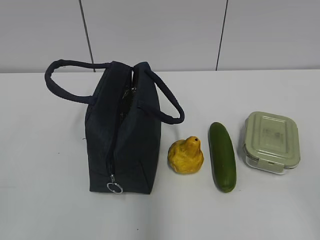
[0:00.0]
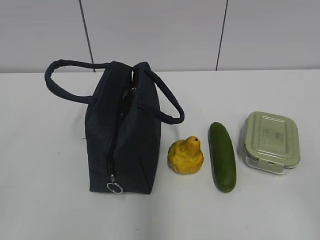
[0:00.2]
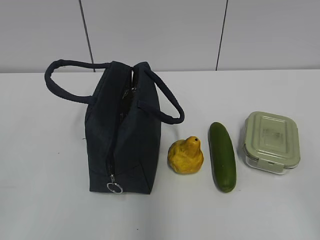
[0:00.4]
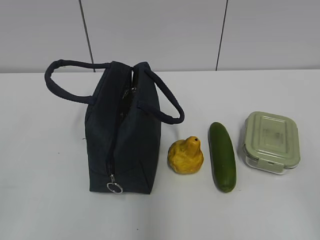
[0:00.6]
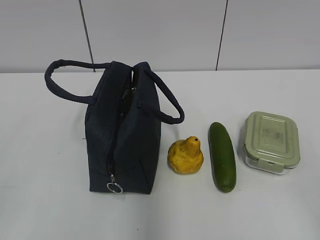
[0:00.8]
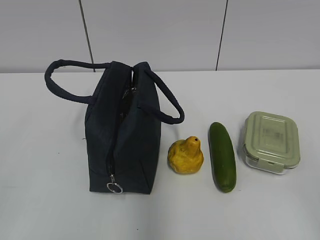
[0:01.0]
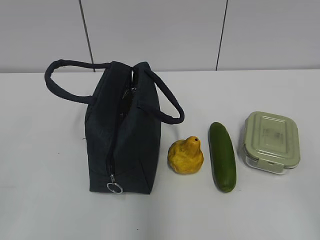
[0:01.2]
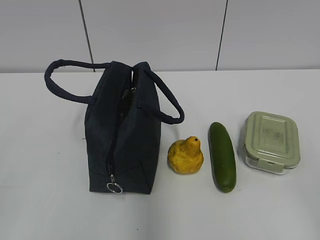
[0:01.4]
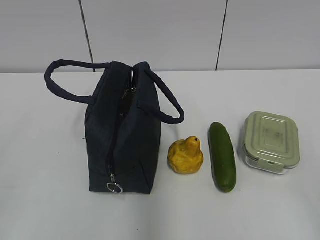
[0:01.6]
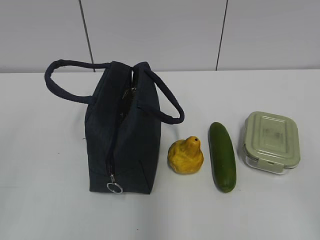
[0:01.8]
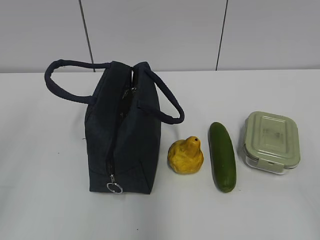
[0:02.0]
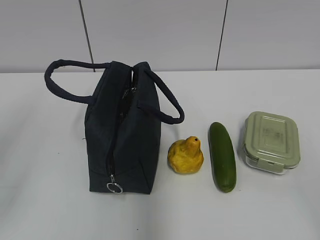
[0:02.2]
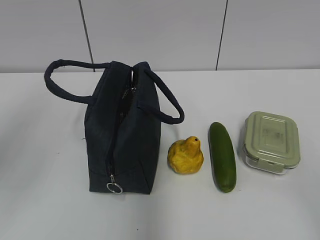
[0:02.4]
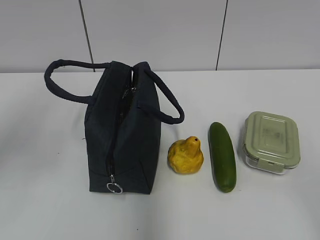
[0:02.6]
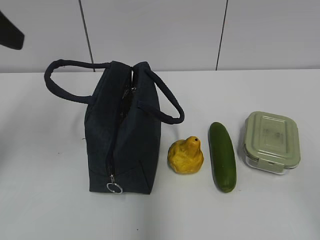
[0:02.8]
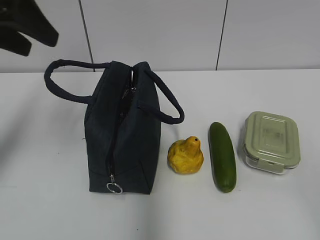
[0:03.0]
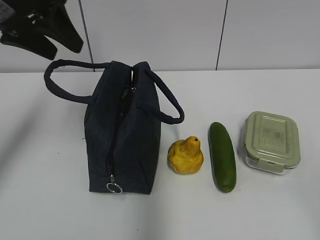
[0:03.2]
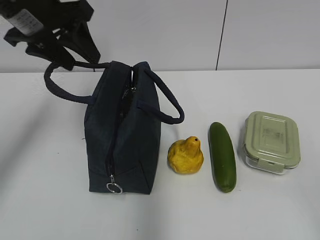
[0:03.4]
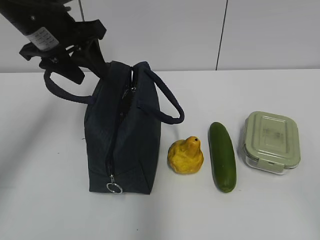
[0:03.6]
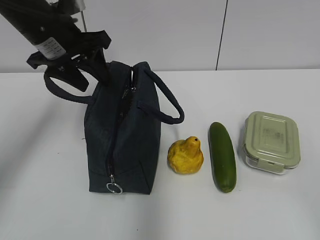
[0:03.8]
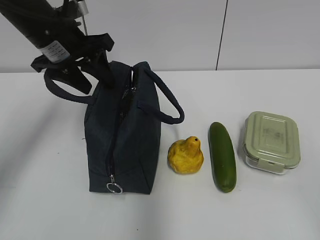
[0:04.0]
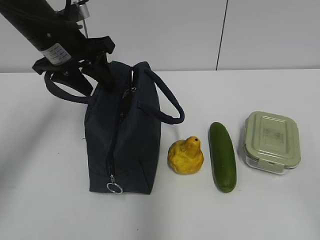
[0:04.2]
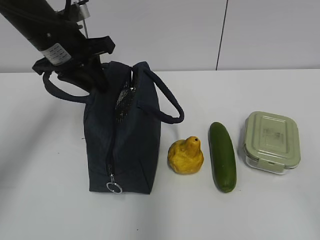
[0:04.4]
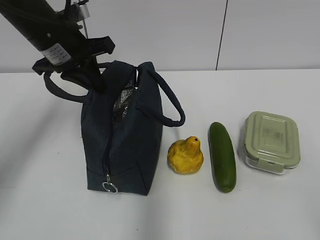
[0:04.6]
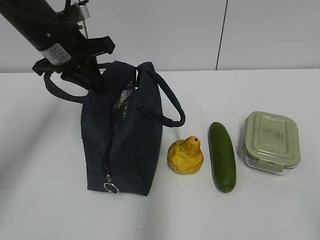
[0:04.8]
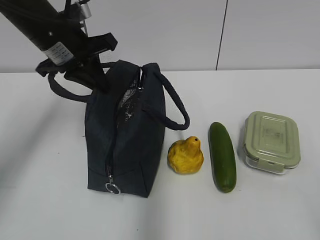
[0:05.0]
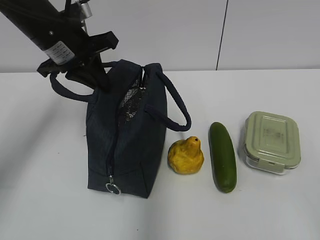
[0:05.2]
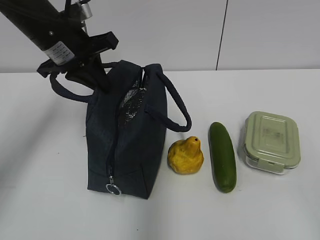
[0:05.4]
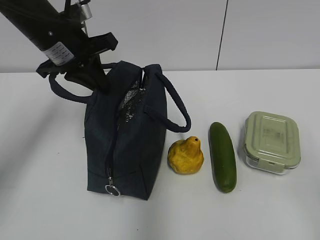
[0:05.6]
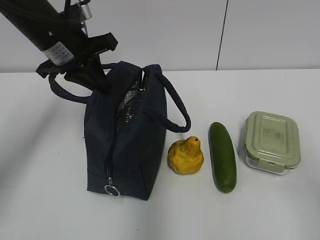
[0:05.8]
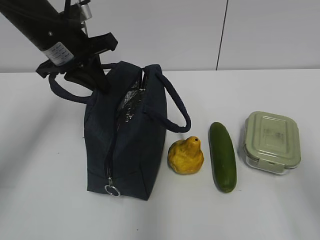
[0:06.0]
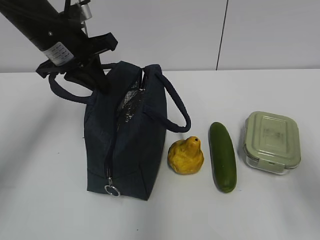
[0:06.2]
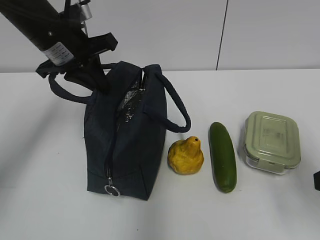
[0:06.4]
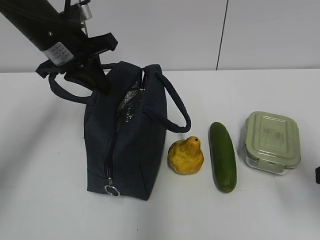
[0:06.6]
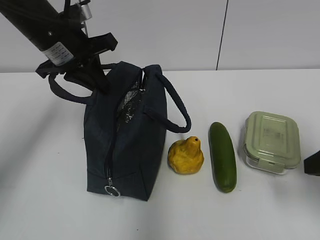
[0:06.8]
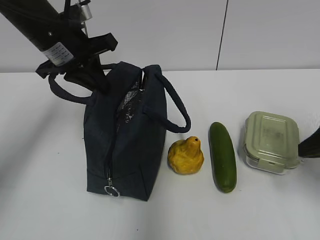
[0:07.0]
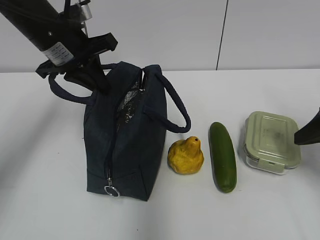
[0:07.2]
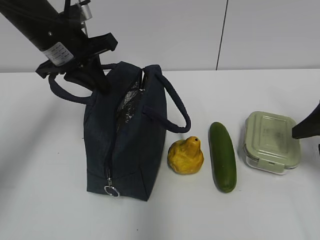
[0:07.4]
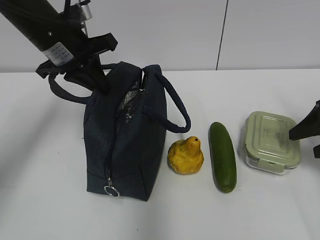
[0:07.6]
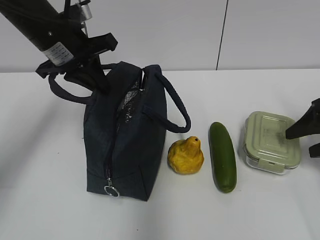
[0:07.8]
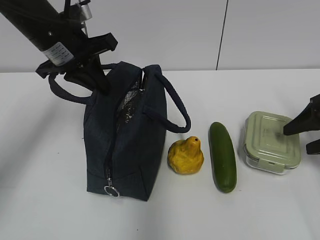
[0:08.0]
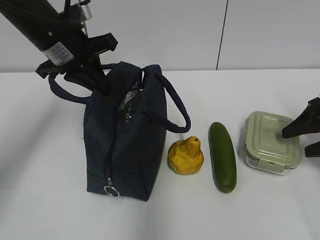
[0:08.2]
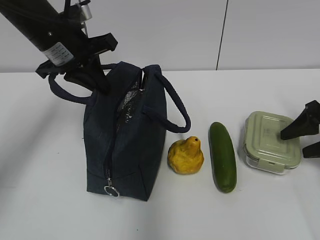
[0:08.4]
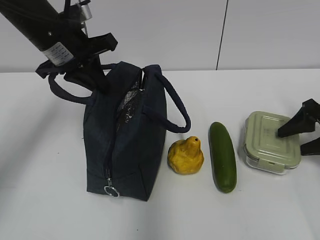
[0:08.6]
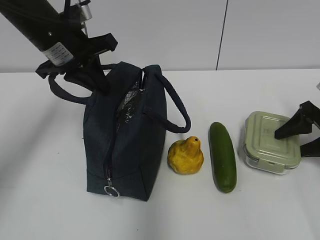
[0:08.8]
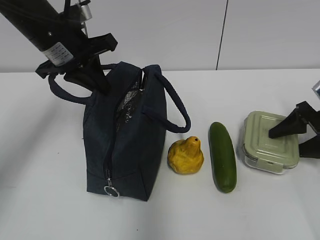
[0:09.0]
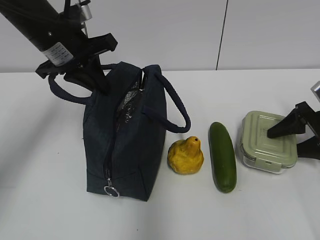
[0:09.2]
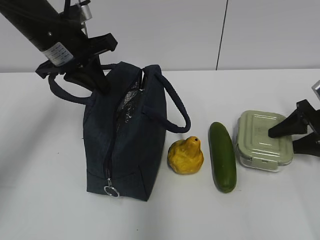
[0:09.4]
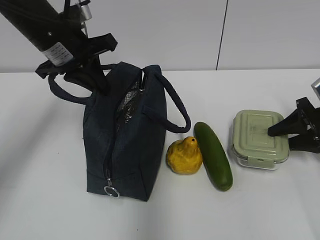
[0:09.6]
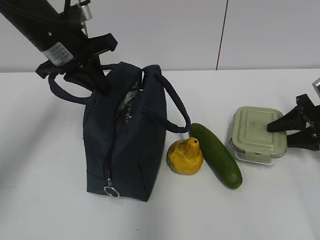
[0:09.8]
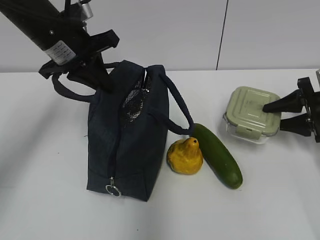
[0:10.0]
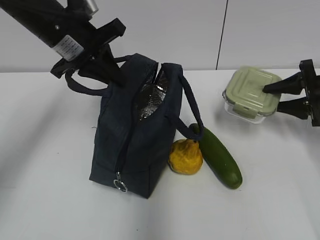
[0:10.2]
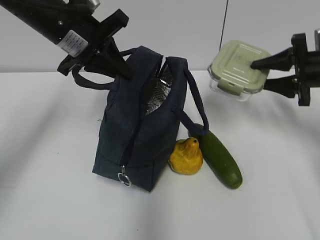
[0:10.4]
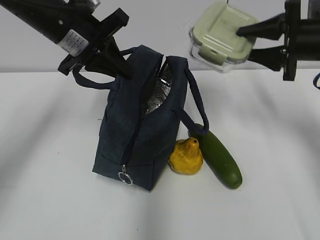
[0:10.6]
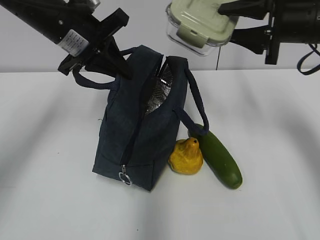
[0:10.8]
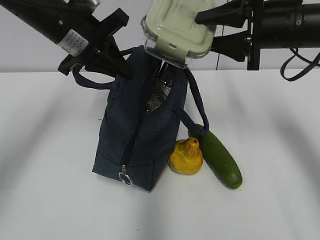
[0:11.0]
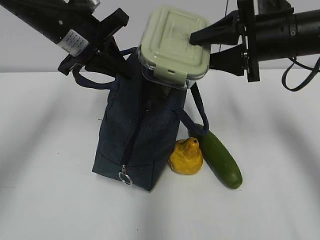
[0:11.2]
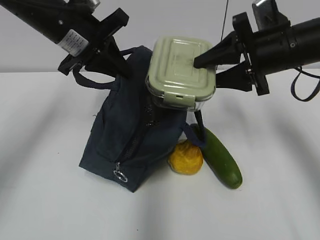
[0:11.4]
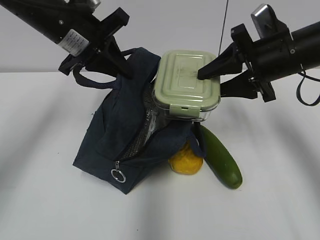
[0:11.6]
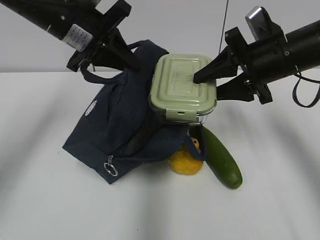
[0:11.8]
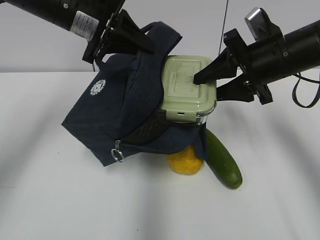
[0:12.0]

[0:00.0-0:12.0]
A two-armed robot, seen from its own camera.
Step, 0:00.0 to 0:04.6: Grab the lunch bag with your left hand.
Step, 0:04.8 to 0:09.6: Grab the lunch box with your right hand.
0:01.6 to 0:03.0: The left gripper is displaced forward by roughly 30 cm.
0:03.0 to 0:04.4: The left gripper shifts about 15 cm downward, forward and to the right, and closes.
0:04.4 to 0:06.0: The right gripper heads forward, covering approximately 10 cm; the left gripper closes.
0:06.0 to 0:07.6: The right gripper goes about 20 cm forward.
0:07.6 to 0:09.0: The right gripper shifts some 10 cm downward and forward.
0:09.0 to 0:10.4: The right gripper travels upward by roughly 10 cm, and closes its fingers.
0:10.4 to 0:12.0: The right gripper is displaced to the left by some 10 cm.

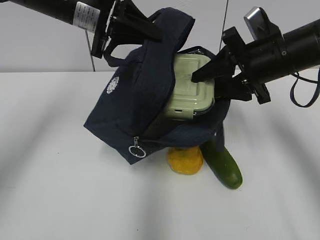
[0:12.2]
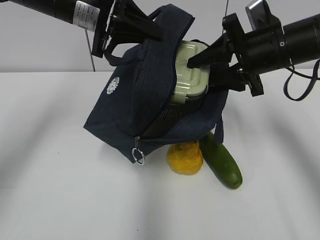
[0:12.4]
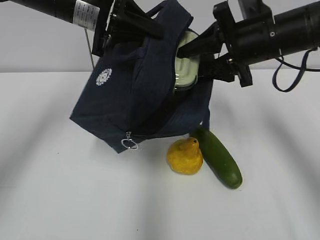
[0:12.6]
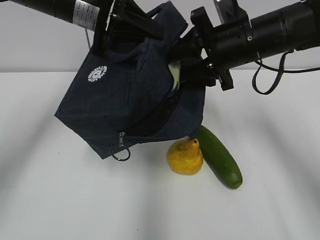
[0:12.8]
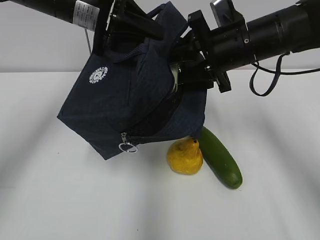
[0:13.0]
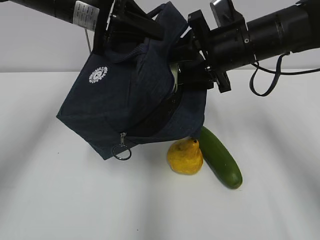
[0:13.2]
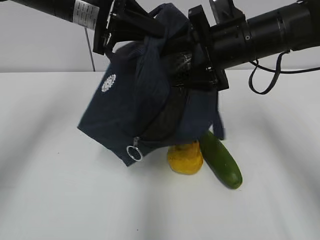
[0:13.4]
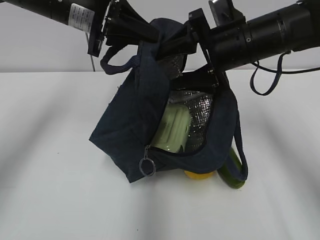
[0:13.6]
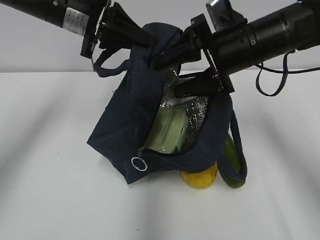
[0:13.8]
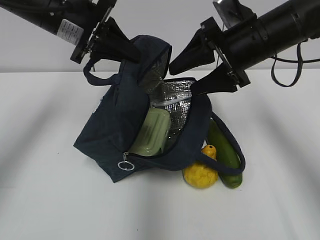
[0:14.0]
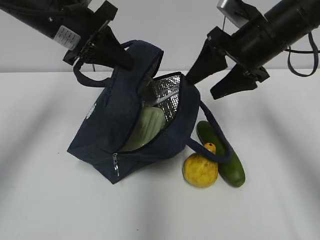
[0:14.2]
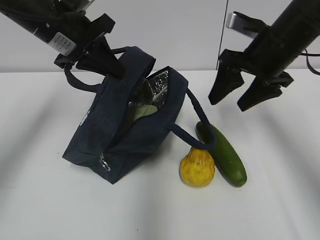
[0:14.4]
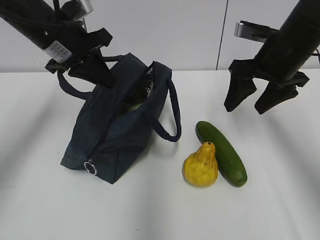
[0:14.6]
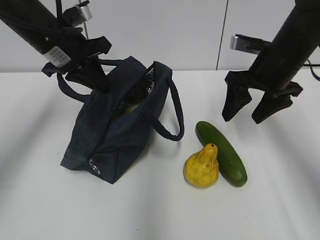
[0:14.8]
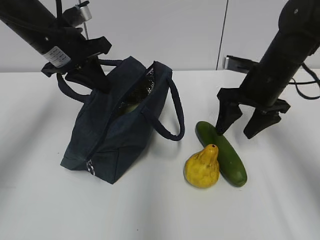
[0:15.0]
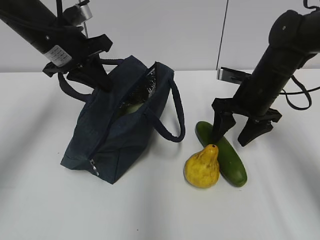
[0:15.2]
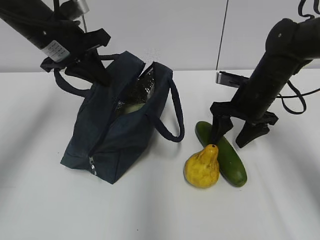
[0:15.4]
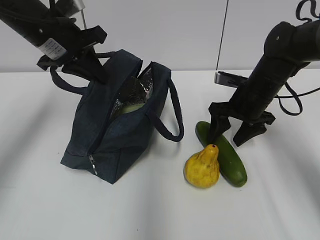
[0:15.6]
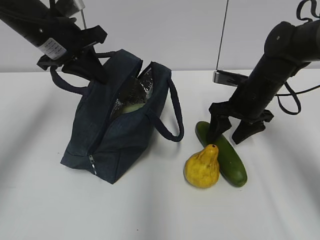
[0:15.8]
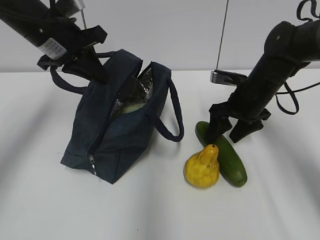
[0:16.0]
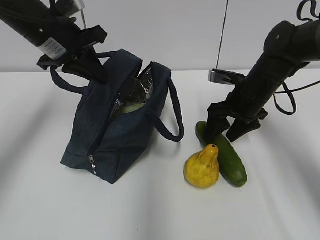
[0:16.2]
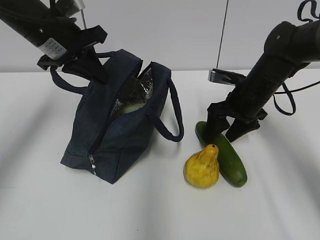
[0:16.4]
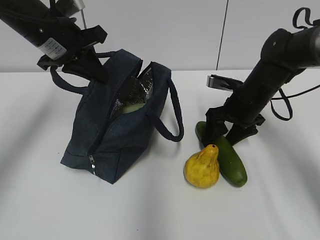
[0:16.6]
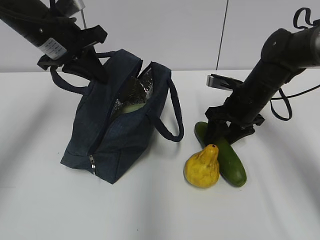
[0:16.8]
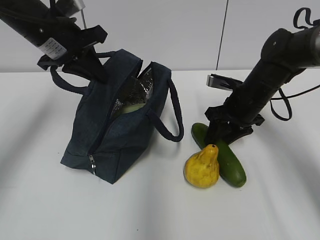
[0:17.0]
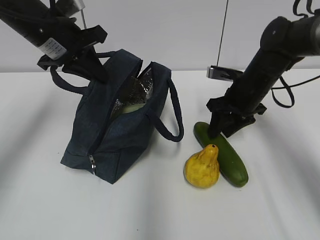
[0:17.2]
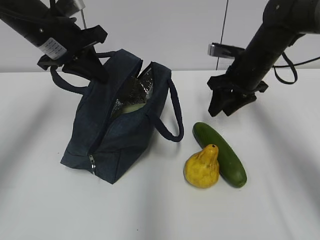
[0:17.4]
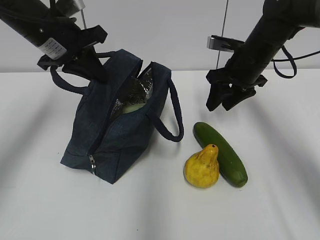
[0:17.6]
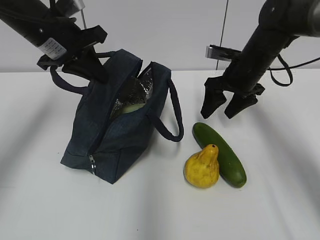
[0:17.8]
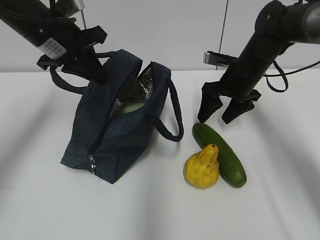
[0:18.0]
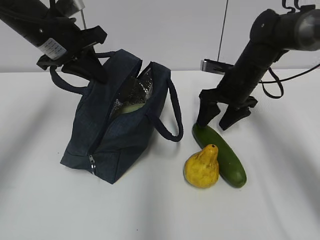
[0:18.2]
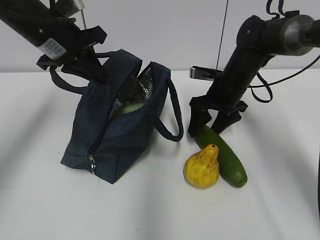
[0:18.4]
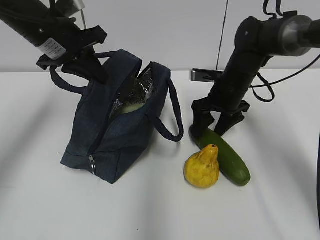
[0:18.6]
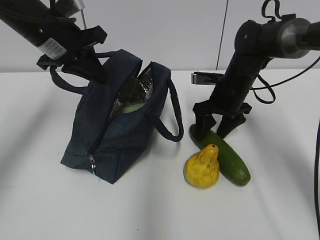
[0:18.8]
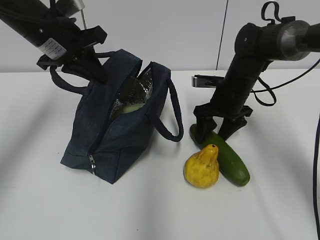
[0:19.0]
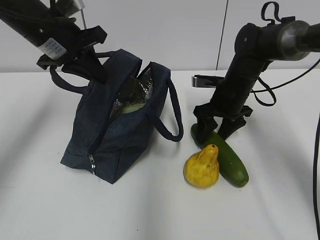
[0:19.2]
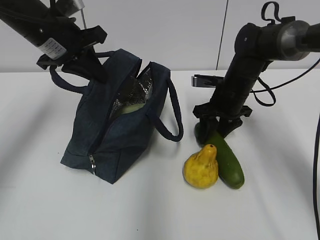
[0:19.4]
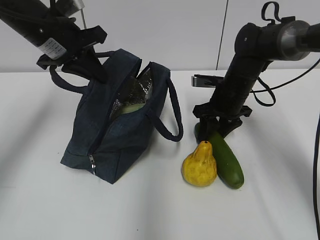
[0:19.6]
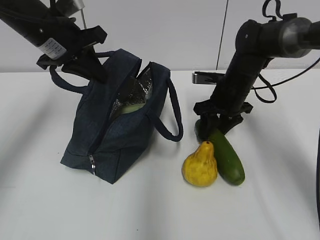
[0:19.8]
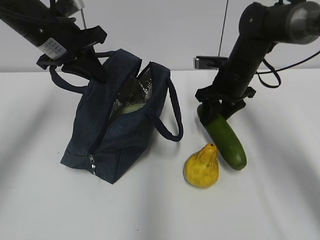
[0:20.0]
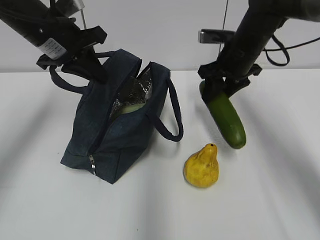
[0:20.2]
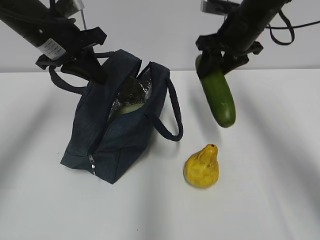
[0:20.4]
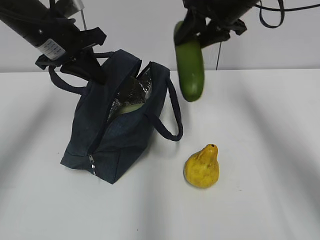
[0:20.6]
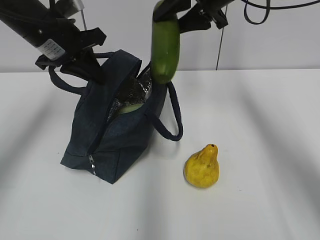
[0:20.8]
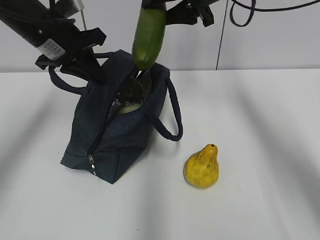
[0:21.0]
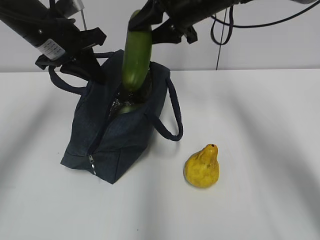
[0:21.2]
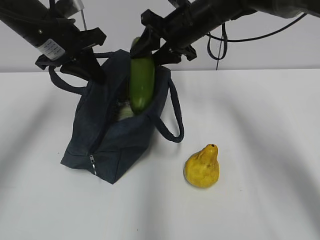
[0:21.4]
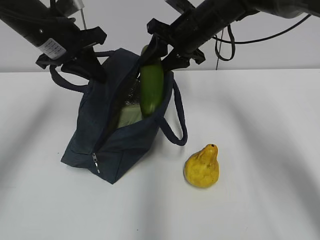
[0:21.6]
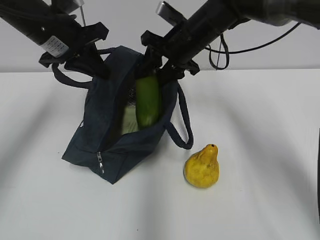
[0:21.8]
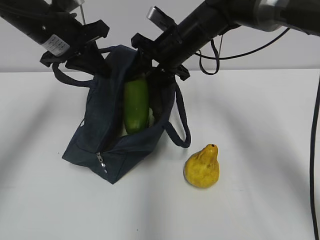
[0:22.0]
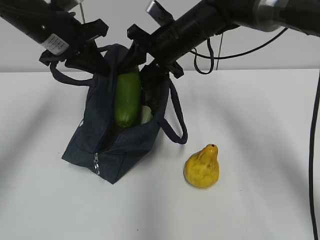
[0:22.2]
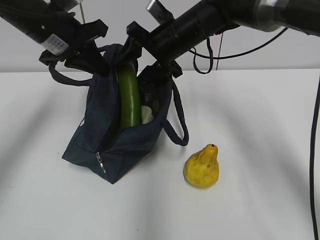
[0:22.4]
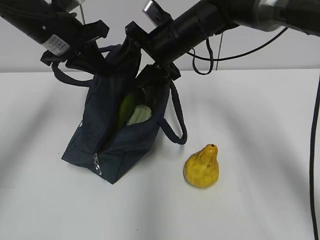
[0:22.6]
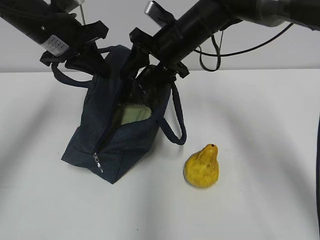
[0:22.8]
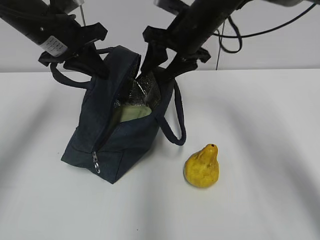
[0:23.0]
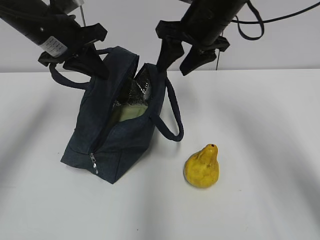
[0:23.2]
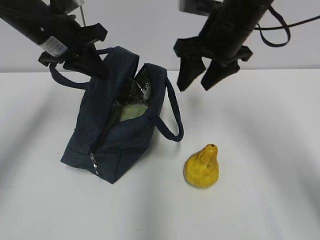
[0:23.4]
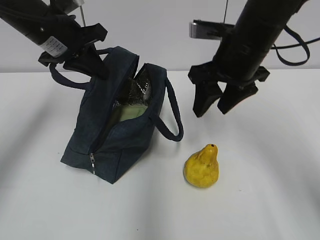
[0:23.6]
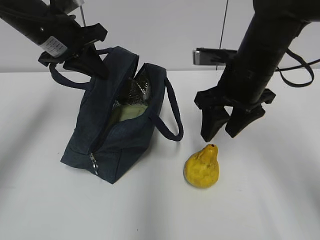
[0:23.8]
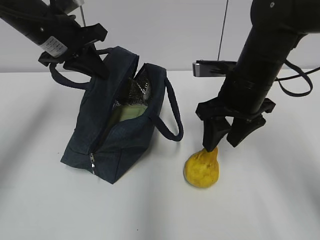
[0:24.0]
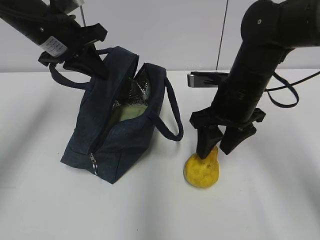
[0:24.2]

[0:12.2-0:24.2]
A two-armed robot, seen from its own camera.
Step, 0:13.6 to 0:19.8: Grab the cucumber with your right hand.
Step, 0:20.0 to 0:22.6: Place it into the bag with your right hand.
0:12.2 to 0:13.8: The right gripper opens its fingers.
0:13.8 to 0:15.2: The right gripper moves downward and to the right, roughly 10 cm; the left gripper changes place by about 5 cm.
0:15.2 to 0:16.6: The grippers move only a little.
0:16.6 to 0:18.2: The right gripper closes, then reopens.
0:18.2 to 0:19.8: The right gripper closes.
0:19.8 to 0:21.2: The right gripper heads upward and to the left, covering about 20 cm.
0:21.2 to 0:22.6: The right gripper heads downward, covering some 5 cm, and opens.
0:22.6 to 0:24.2: The right gripper is displaced backward and to the right by about 15 cm.
